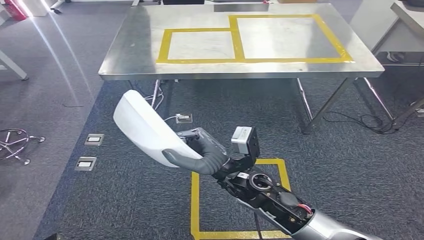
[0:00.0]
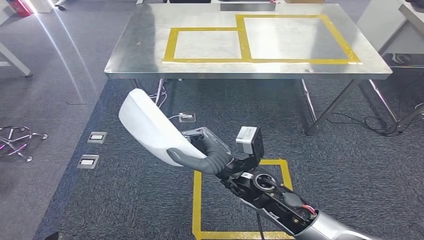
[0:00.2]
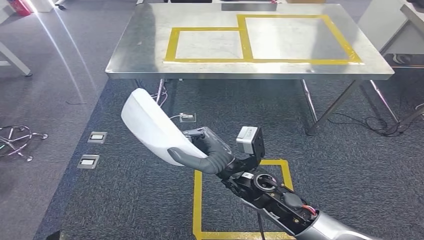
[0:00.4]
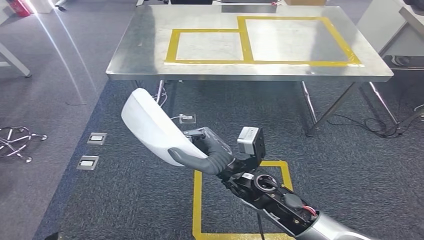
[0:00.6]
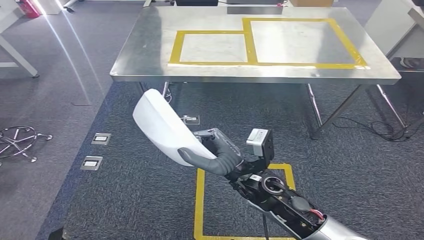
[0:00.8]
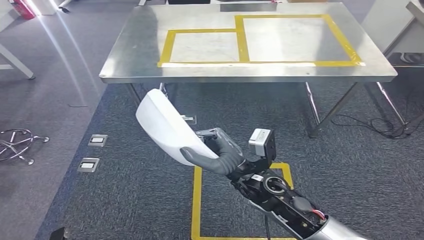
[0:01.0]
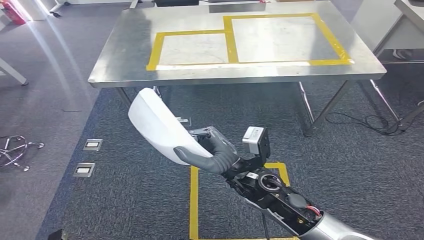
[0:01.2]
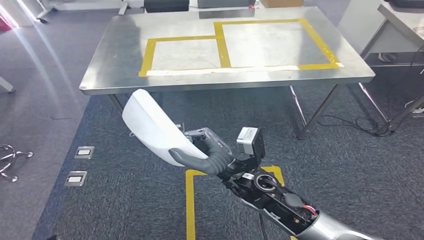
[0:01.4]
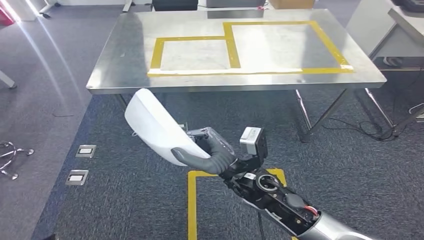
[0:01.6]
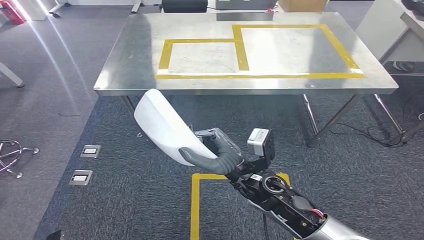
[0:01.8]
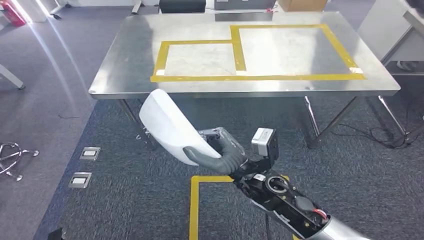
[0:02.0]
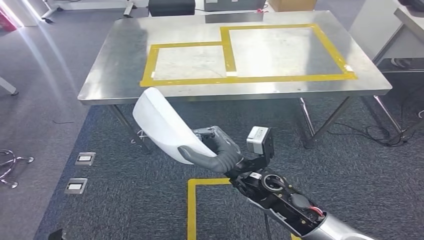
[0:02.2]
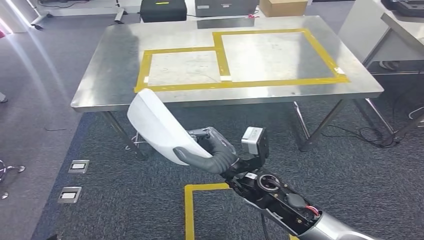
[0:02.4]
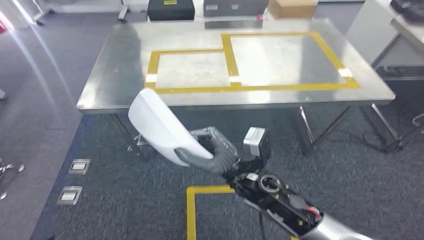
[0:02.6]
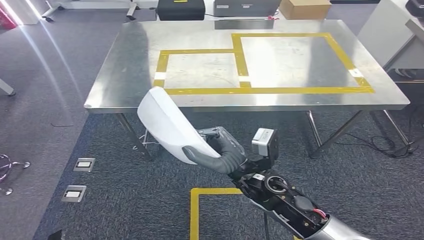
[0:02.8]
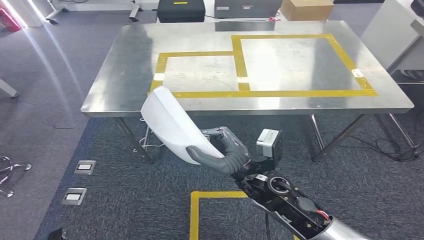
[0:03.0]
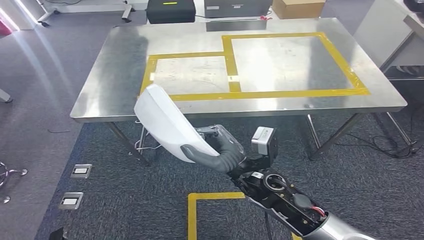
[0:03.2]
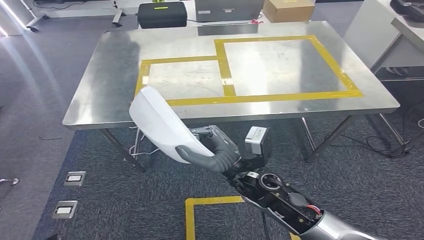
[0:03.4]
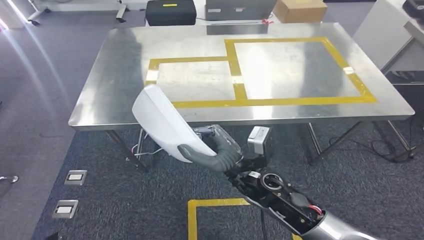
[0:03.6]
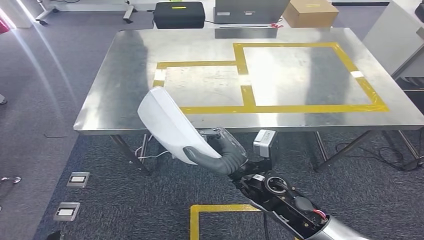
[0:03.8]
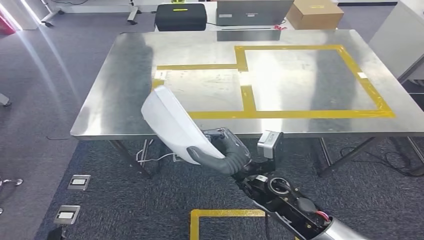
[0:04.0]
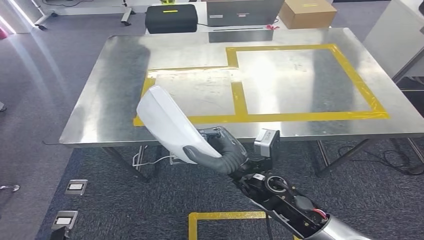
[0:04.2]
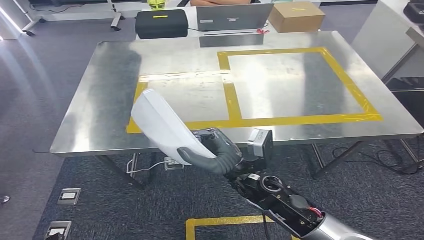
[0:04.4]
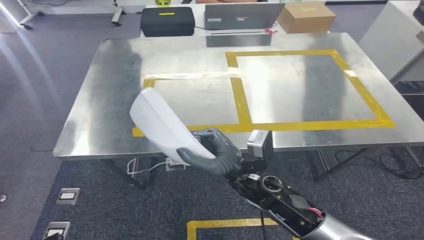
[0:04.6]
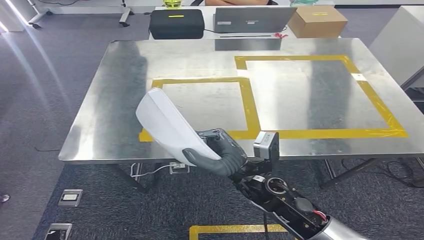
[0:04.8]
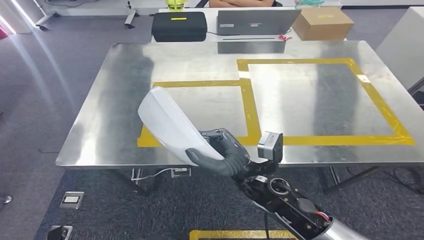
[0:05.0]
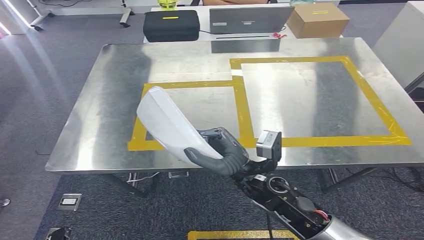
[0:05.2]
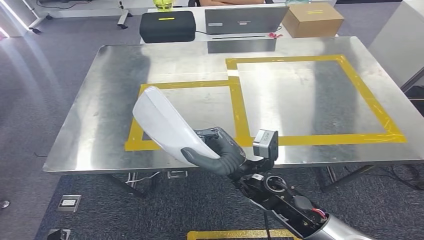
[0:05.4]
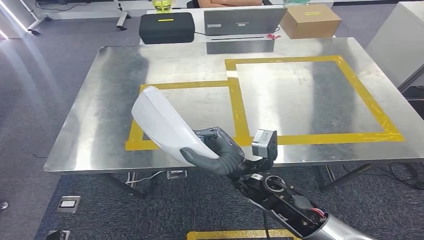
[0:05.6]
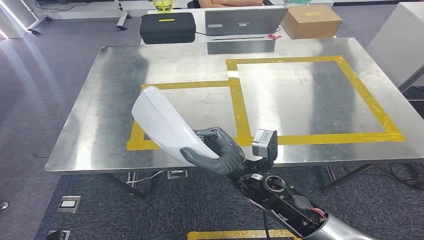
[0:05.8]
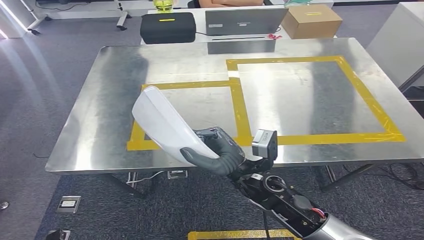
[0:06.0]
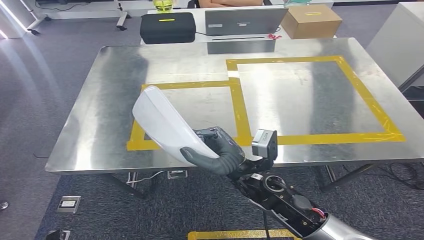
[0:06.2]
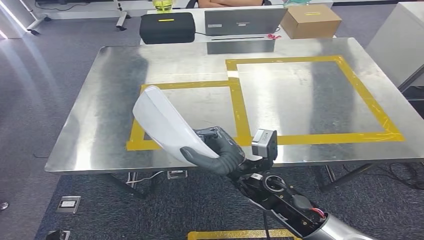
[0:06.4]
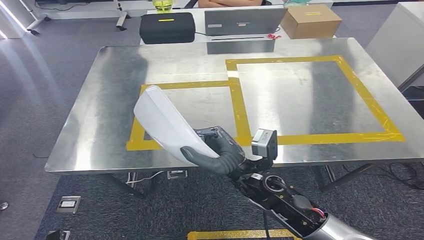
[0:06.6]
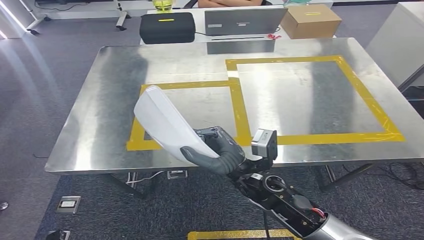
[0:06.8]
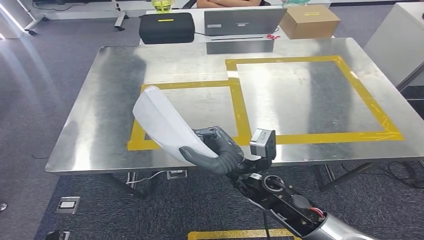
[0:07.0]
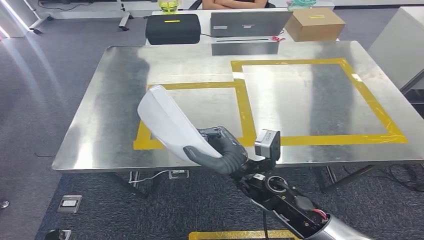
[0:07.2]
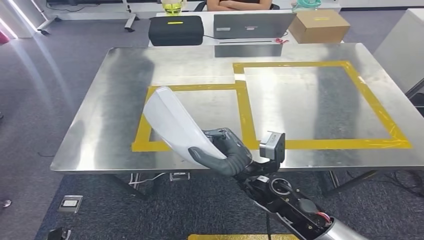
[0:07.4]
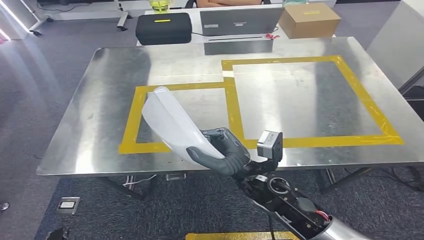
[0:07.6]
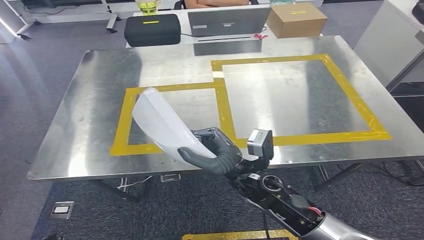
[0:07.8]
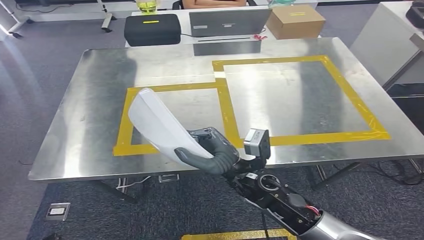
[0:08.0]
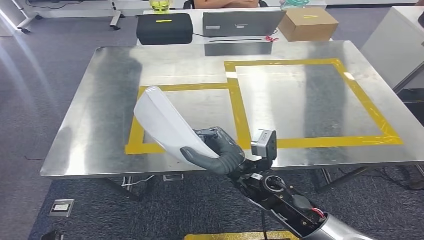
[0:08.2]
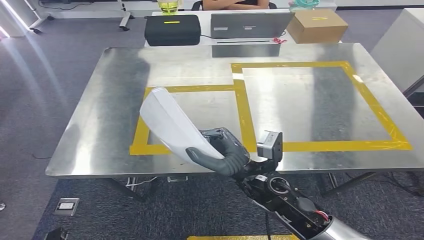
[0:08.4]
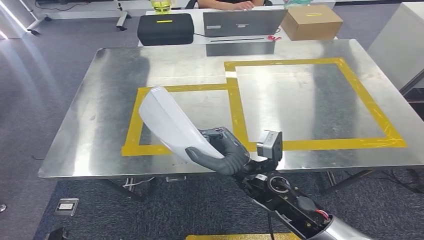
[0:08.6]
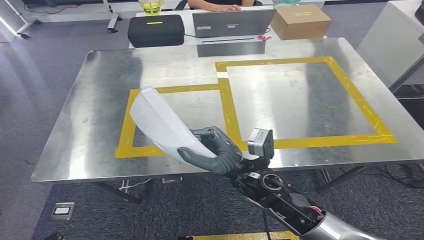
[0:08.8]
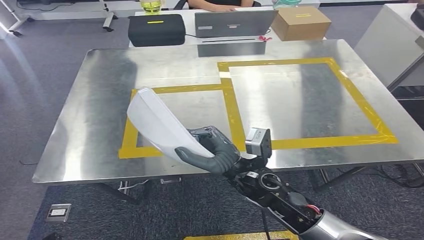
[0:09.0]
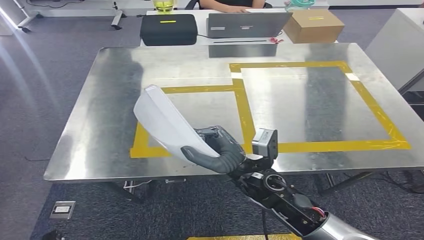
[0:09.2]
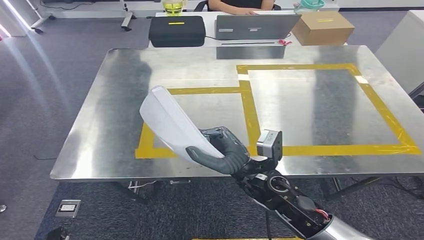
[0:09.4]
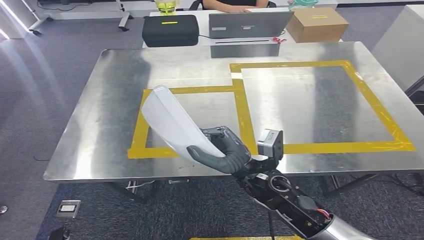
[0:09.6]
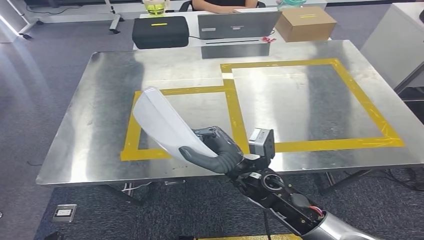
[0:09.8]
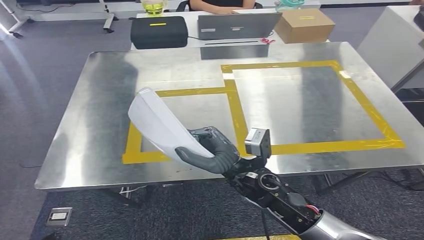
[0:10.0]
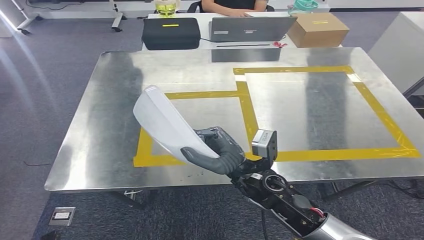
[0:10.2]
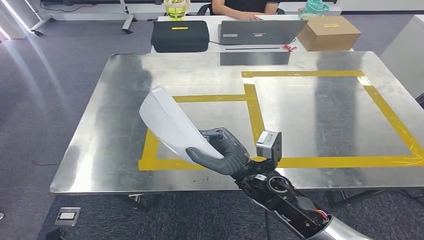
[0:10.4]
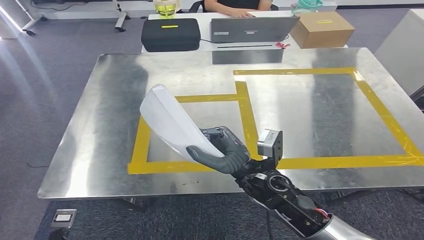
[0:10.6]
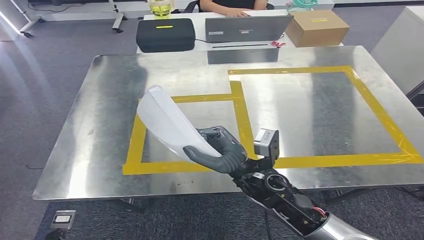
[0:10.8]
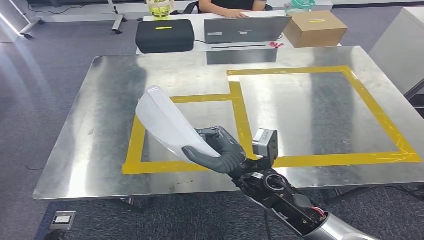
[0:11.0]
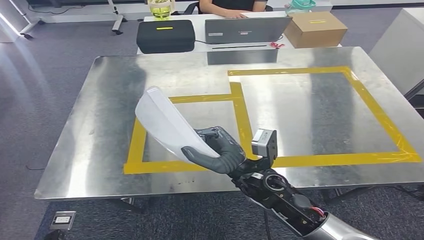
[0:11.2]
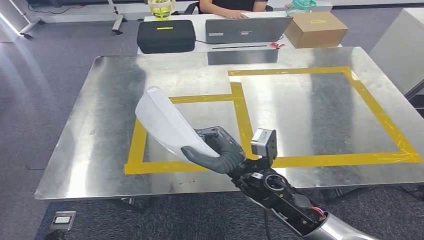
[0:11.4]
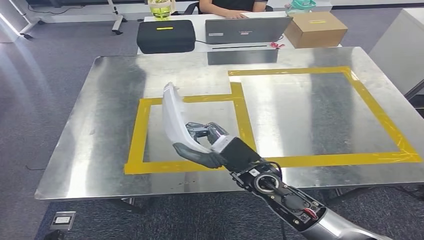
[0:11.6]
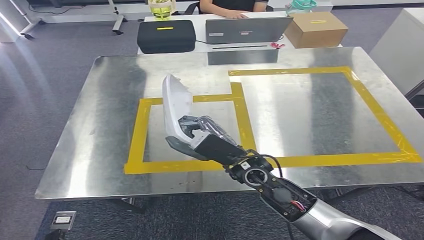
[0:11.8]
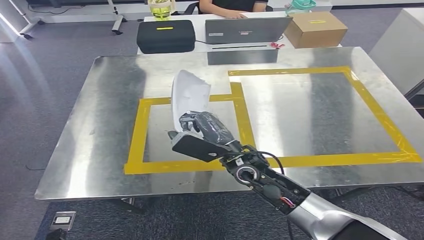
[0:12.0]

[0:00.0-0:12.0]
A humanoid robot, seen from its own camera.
Step, 0:00.0 to 0:08.8: Move the small component to the workbench.
0:06.0 to 0:07.6: Both hands stay about where they are.

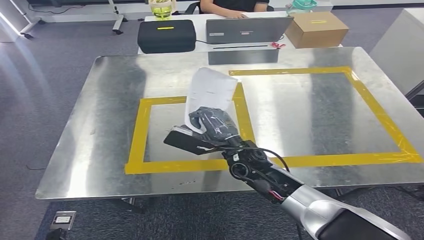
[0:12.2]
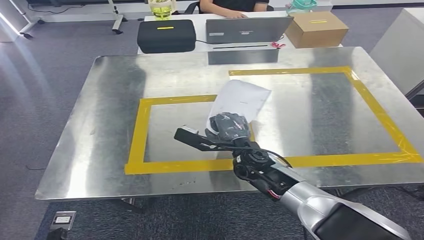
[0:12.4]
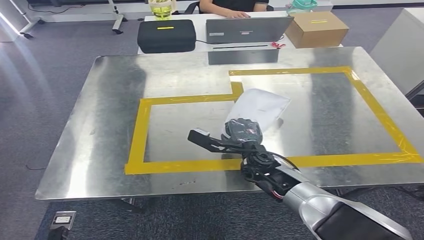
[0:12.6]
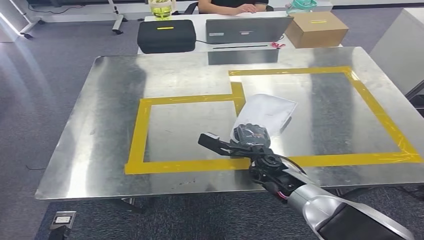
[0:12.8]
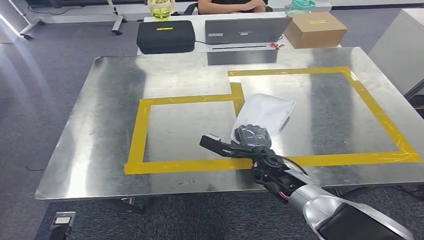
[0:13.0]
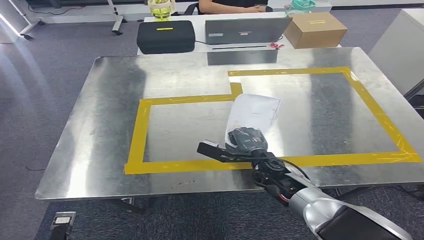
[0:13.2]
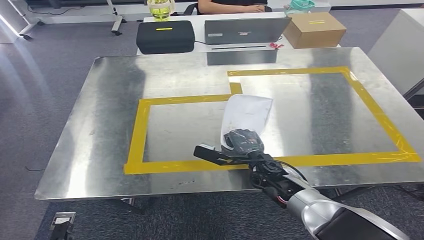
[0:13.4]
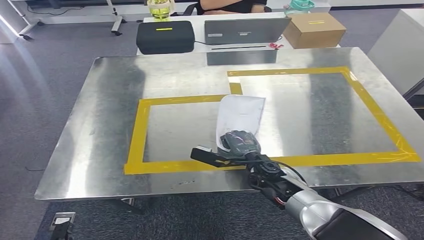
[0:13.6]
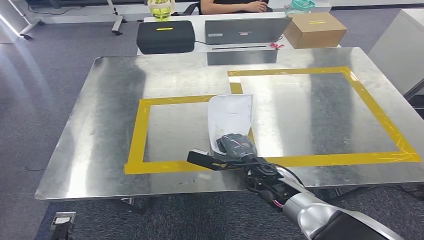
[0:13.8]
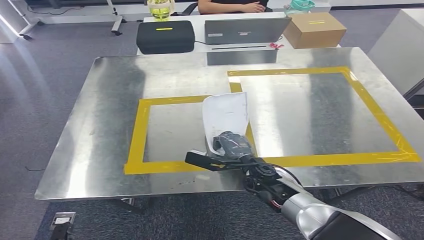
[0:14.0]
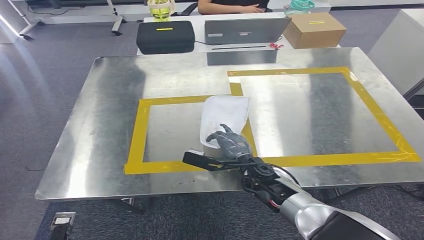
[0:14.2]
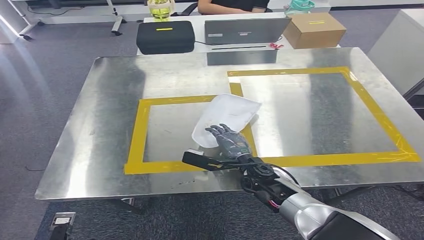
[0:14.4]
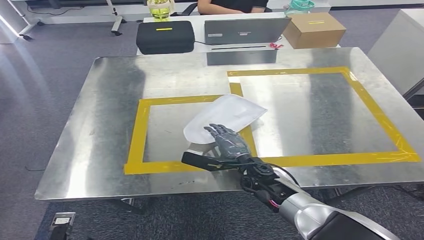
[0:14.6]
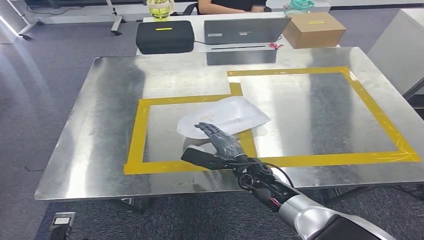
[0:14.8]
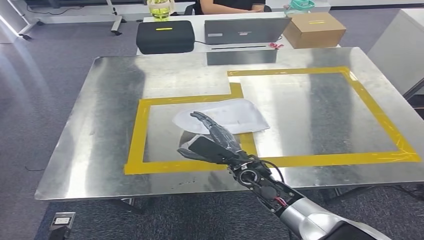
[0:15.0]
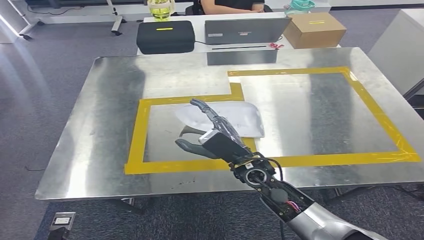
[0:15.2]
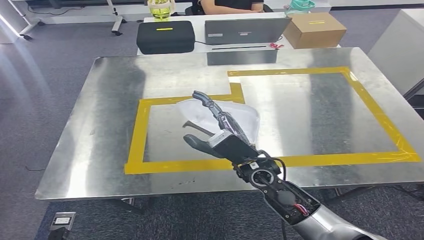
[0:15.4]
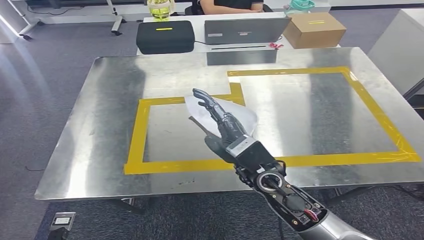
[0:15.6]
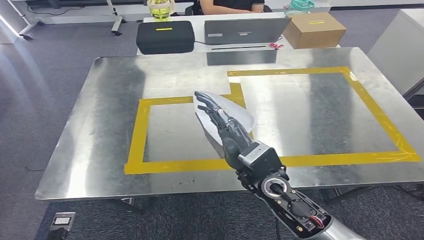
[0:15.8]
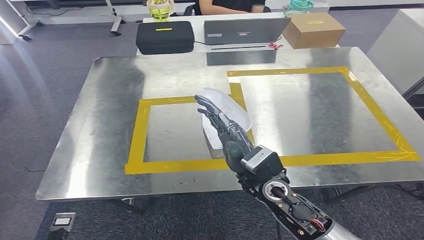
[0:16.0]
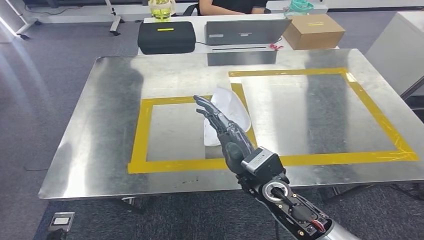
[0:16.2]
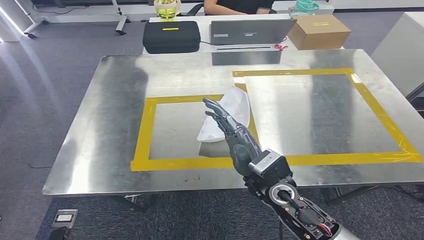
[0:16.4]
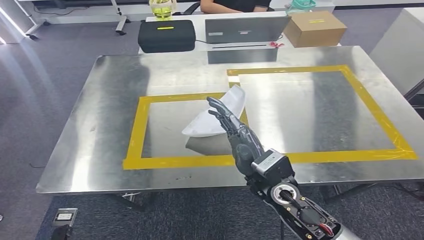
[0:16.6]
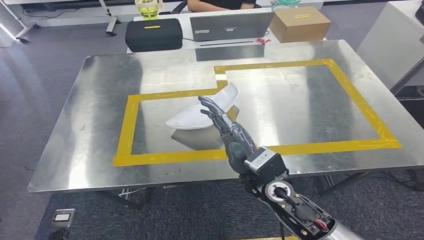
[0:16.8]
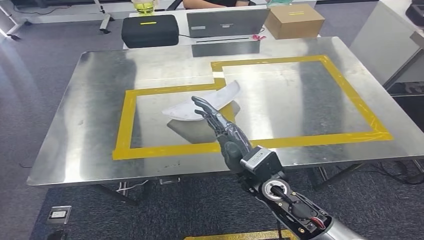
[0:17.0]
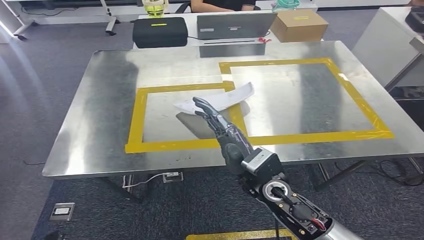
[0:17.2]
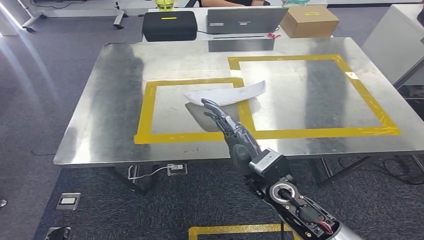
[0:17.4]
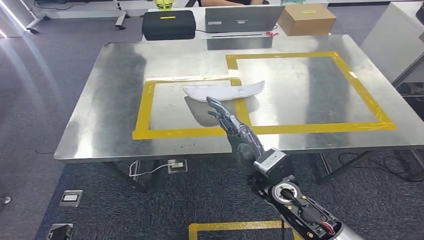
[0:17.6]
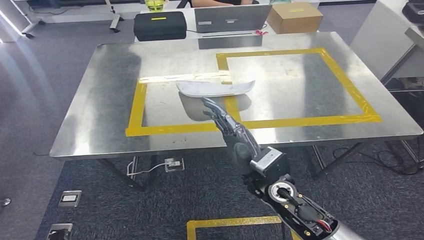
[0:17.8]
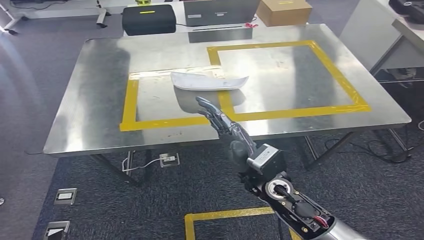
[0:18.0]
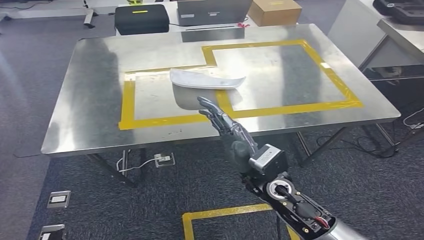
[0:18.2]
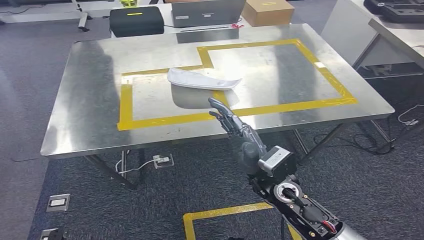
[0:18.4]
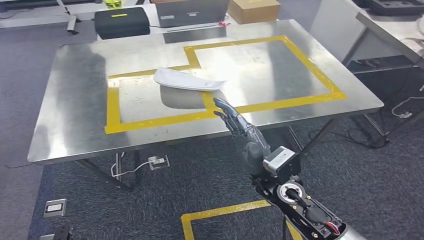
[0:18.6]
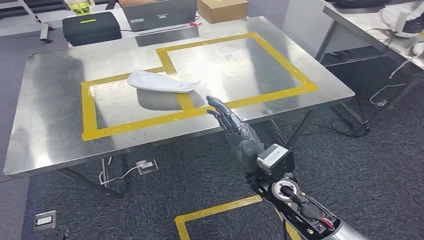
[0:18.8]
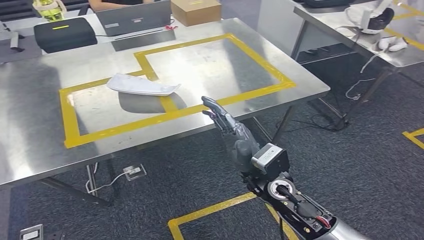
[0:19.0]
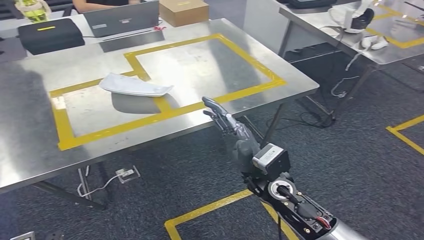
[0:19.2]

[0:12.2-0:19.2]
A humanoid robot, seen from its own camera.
Step, 0:12.2 to 0:19.0: Insert the small component into the corresponding slot on the workbench.
0:12.2 to 0:13.6: The right hand shifts approximately 10 cm downward.
0:15.0 to 0:16.4: The right hand goes roughly 10 cm upward and backward.
